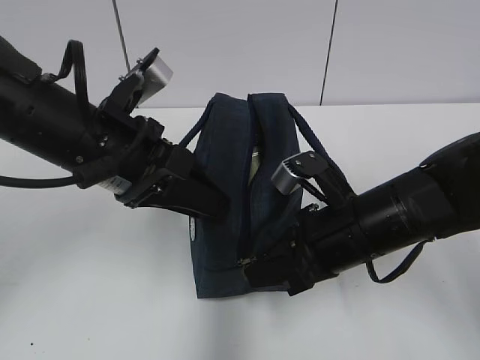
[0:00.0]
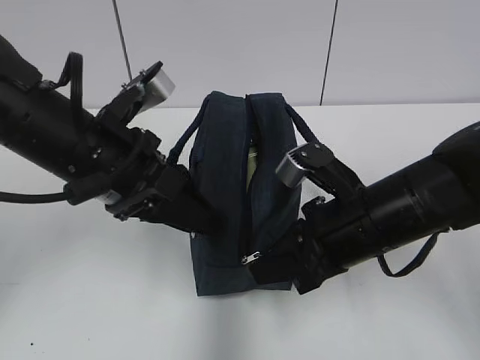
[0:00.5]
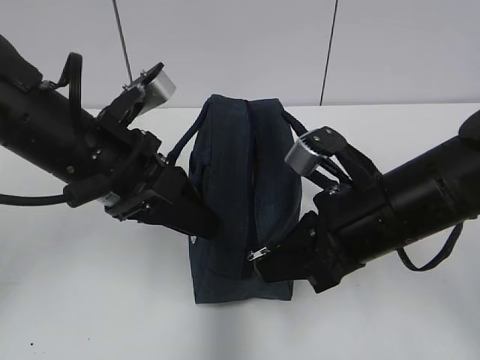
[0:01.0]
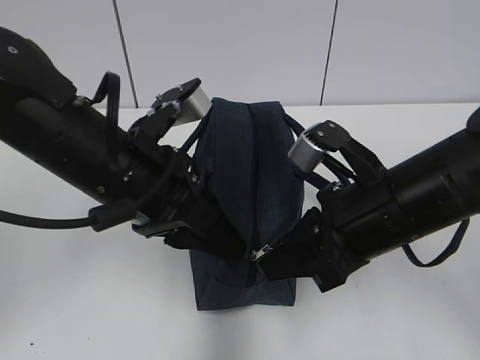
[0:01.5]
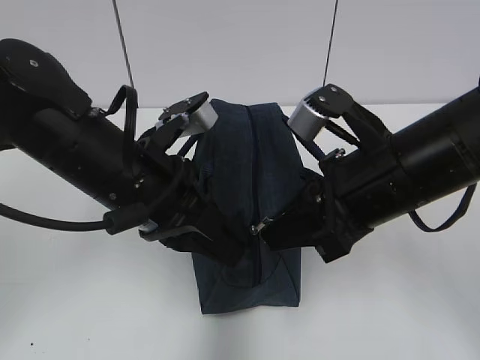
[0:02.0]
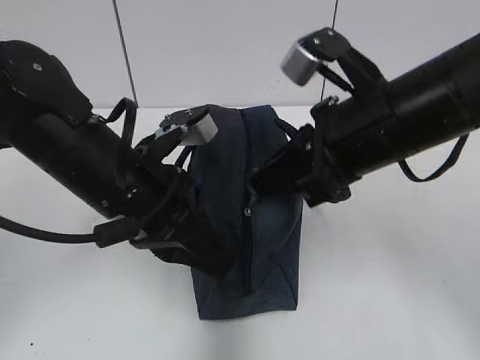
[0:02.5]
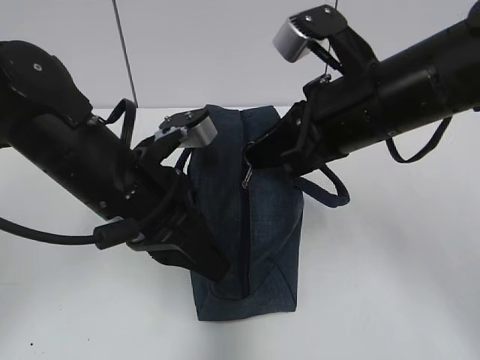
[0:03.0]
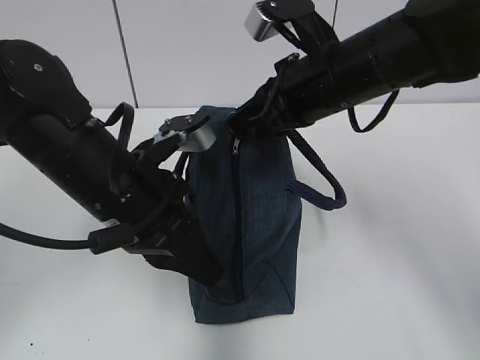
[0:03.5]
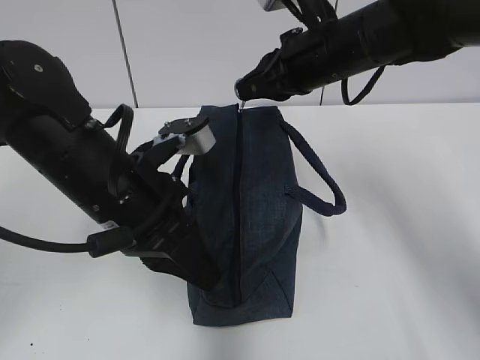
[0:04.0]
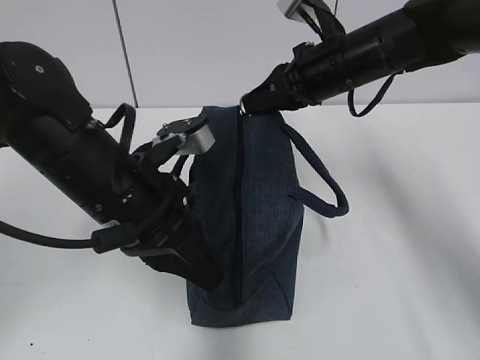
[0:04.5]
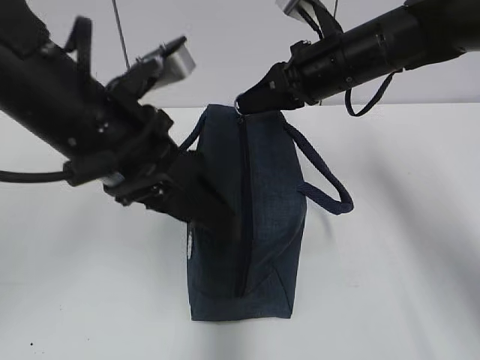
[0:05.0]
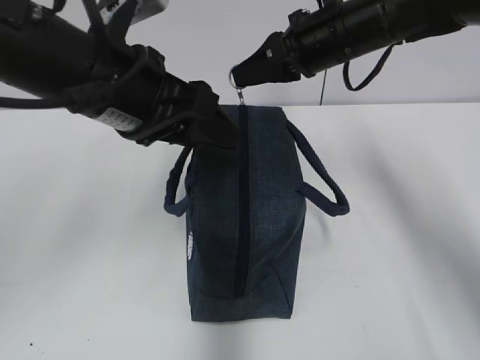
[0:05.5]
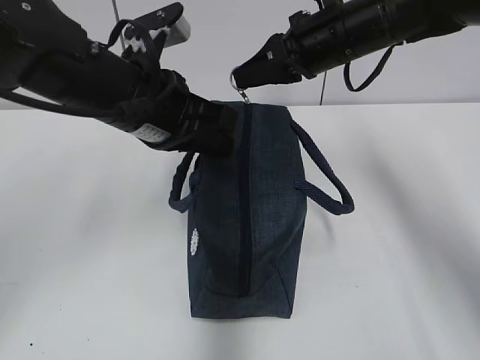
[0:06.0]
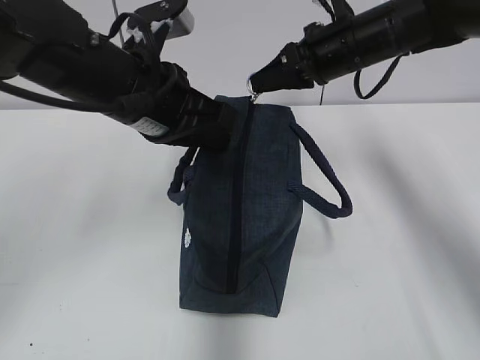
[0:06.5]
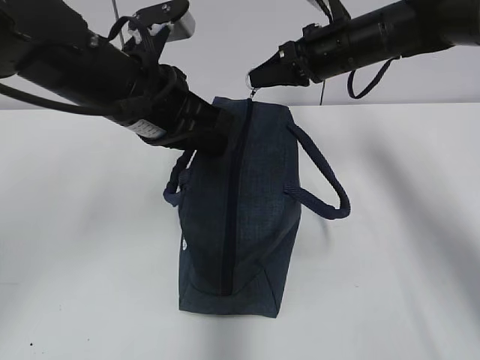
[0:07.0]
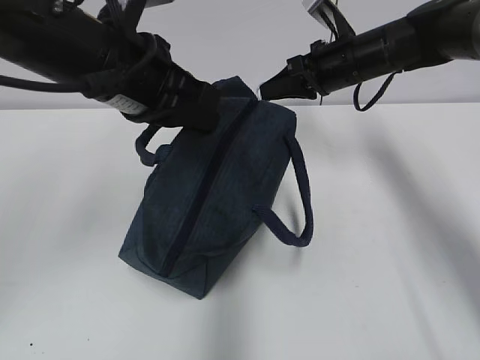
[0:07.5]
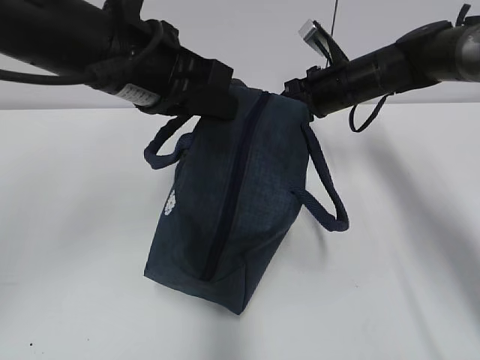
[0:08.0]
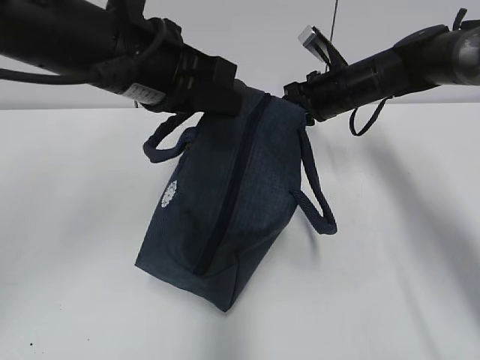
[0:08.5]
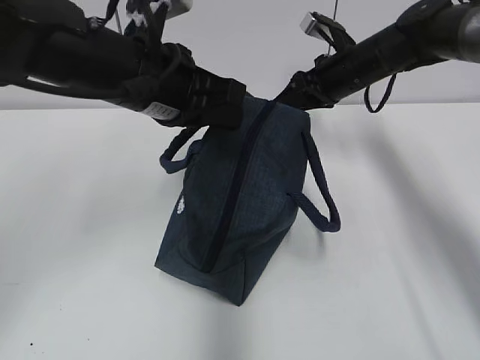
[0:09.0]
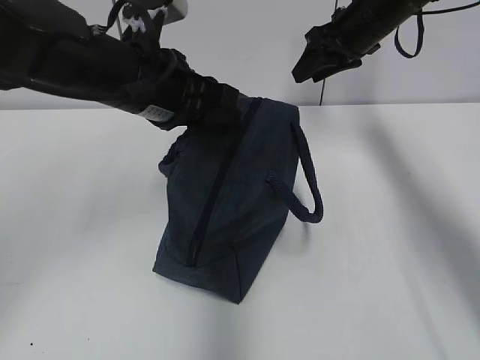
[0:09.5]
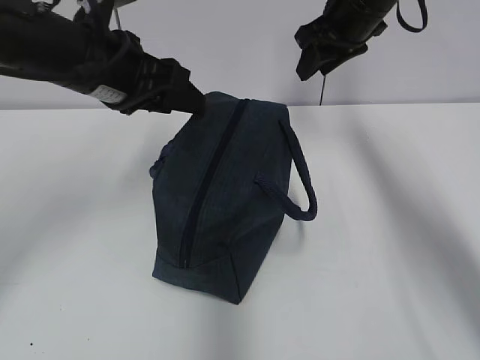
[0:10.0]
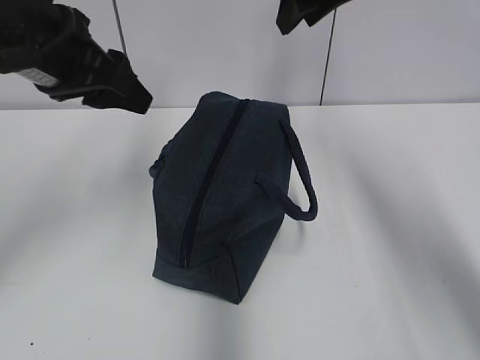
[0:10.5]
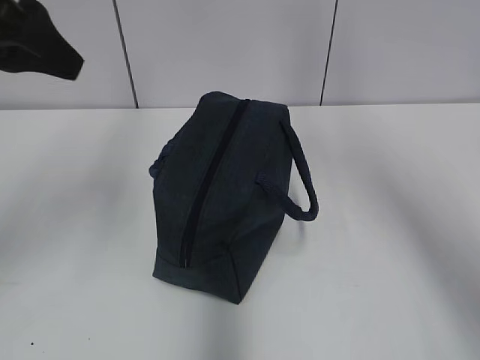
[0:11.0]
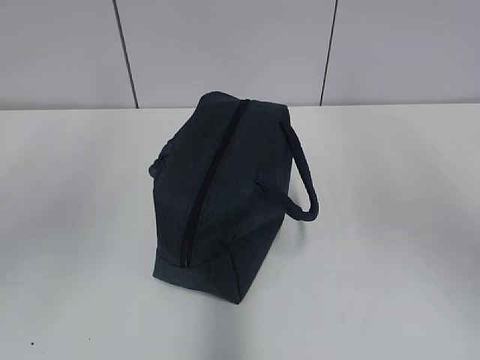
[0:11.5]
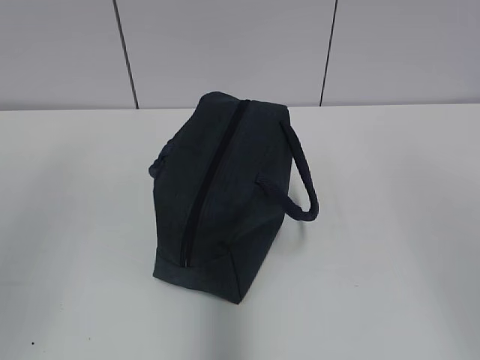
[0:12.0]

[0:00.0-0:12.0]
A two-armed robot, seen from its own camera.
Step, 0:00.0 to 0:04.5: Grab the lunch bag with your left hand.
Step, 0:05.0 to 0:09.0: Pull the zipper with your right hand.
0:00.0 to 0:02.0: The left gripper closes up. Meanwhile the right gripper heads upward, covering roughly 10 cm.
0:02.0 to 0:04.0: The right gripper goes some 15 cm forward.
0:04.0 to 0:06.0: The left gripper travels forward and upward by roughly 10 cm, and opens, then closes again.
0:06.0 to 0:08.0: The right gripper moves downward and forward, about 10 cm.
0:08.0 to 0:10.0: The right gripper is displaced upward by roughly 10 cm, and opens, while the left gripper changes place by about 5 cm, and opens up.
0:10.0 to 0:12.0: The left gripper goes roughly 30 cm backward and to the left. Meanwhile the right gripper shifts some 40 cm backward.

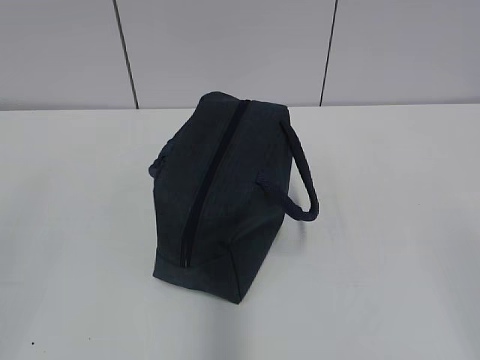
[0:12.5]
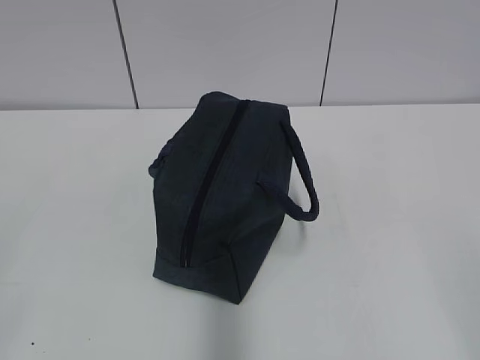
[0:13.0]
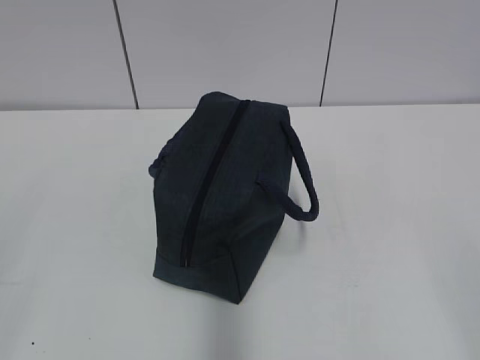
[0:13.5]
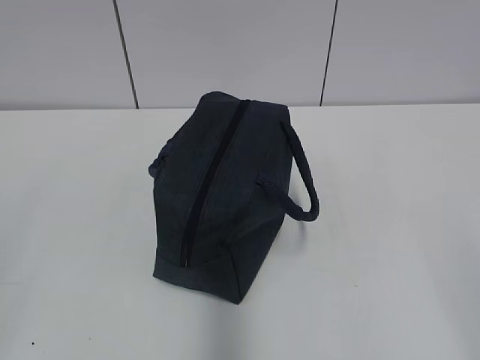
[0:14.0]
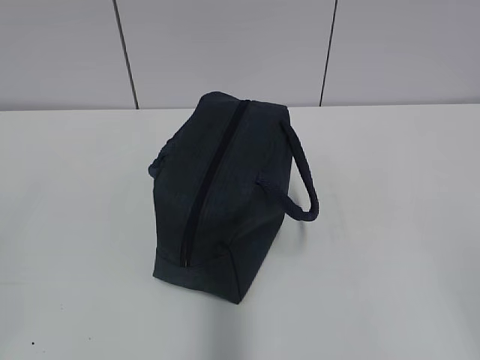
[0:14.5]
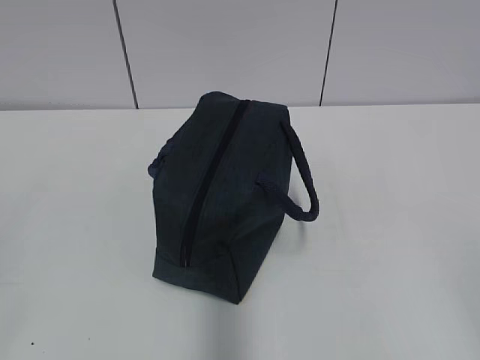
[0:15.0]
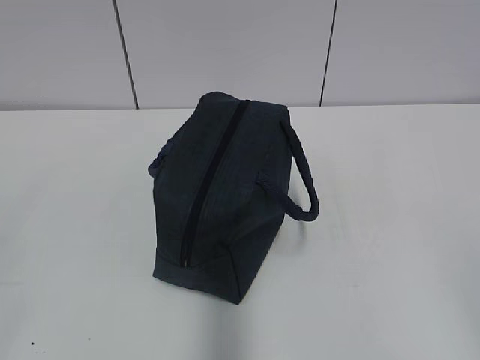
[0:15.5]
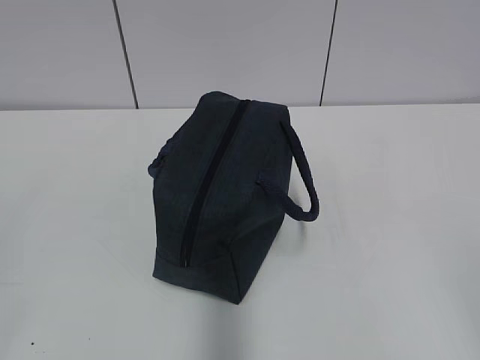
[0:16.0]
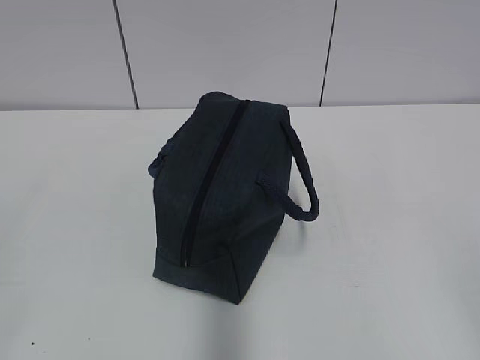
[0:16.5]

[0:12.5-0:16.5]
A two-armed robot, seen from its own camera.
0:14.5 to 0:16.5: Both grippers stay put.
